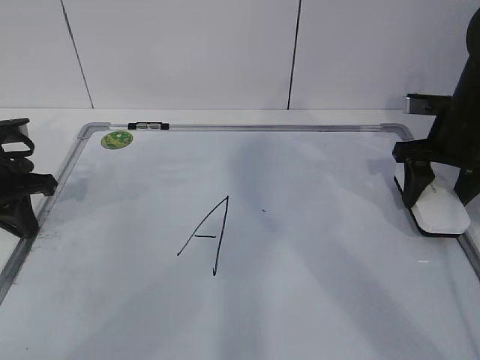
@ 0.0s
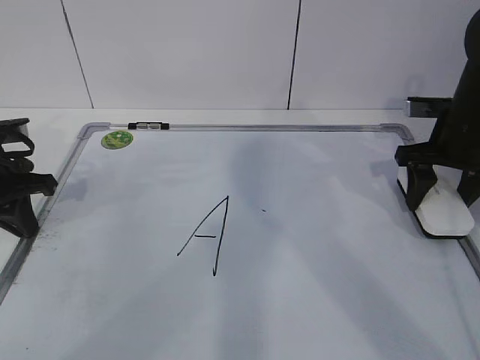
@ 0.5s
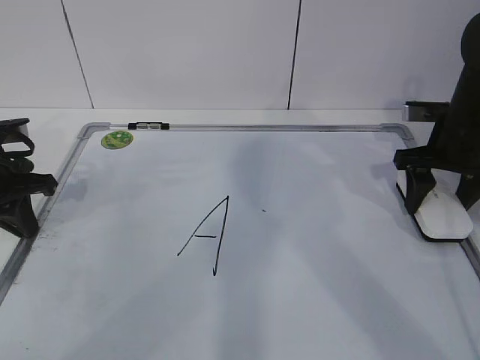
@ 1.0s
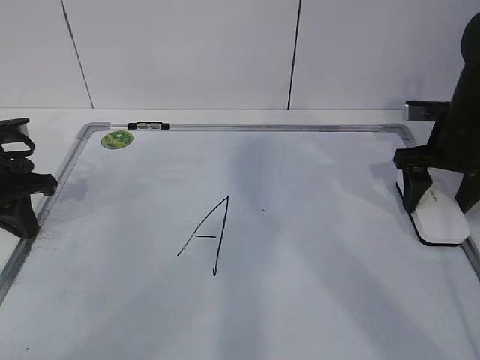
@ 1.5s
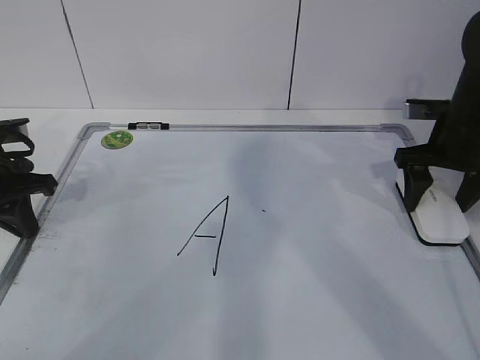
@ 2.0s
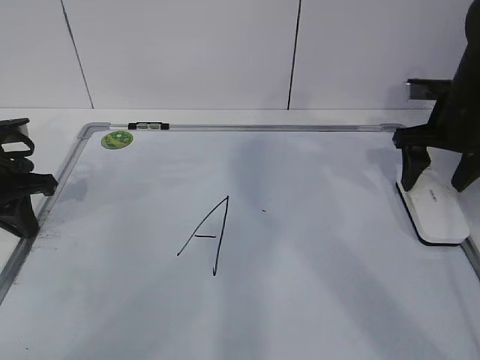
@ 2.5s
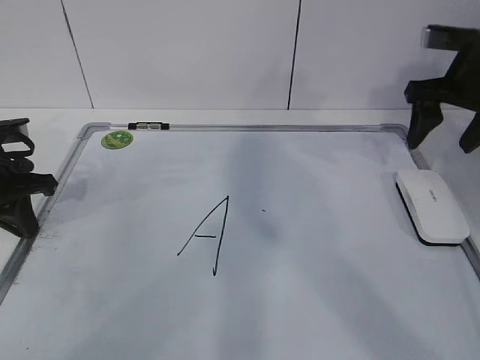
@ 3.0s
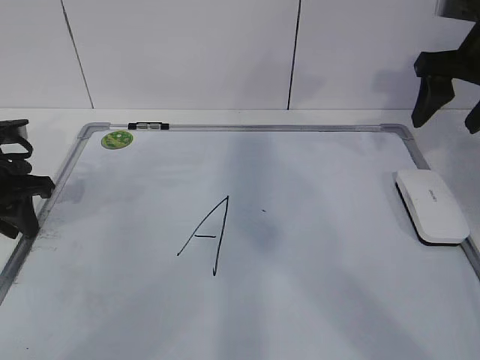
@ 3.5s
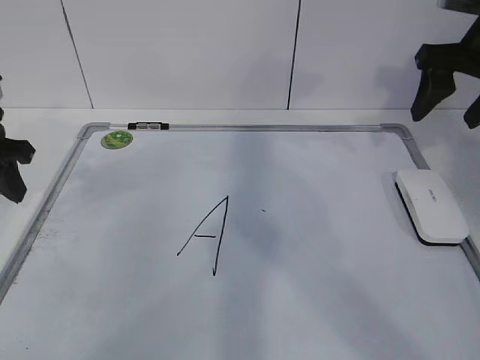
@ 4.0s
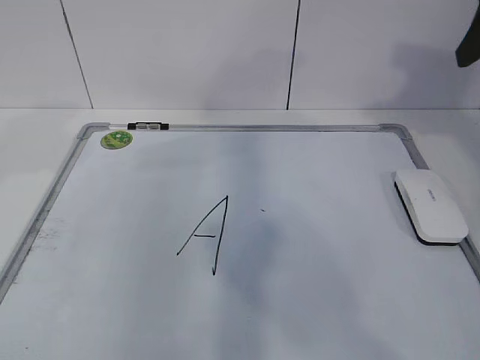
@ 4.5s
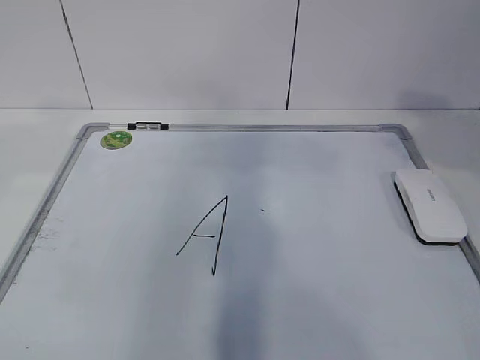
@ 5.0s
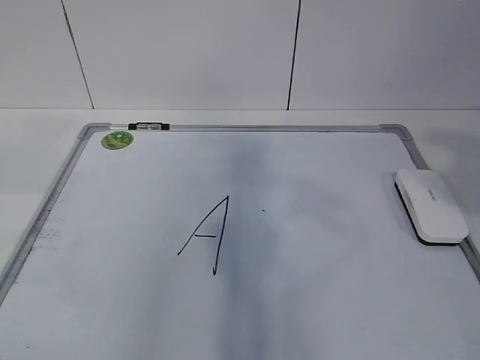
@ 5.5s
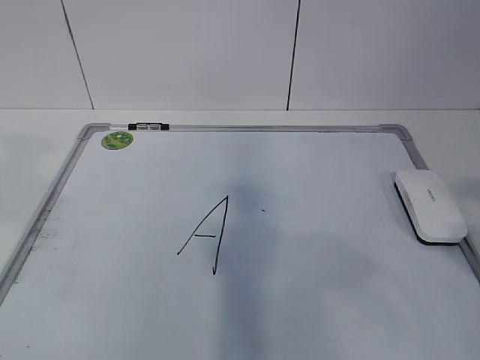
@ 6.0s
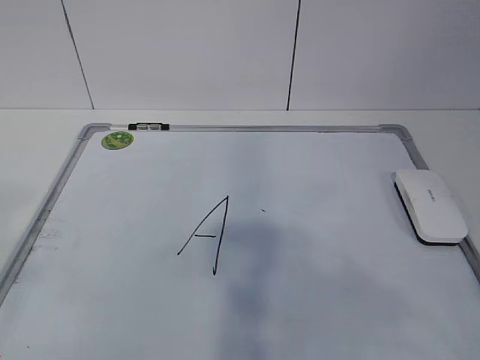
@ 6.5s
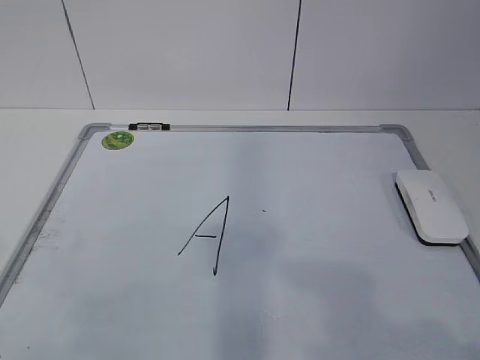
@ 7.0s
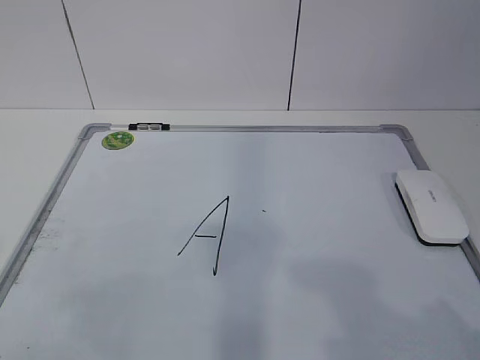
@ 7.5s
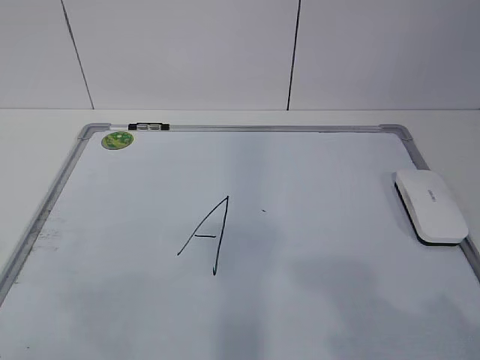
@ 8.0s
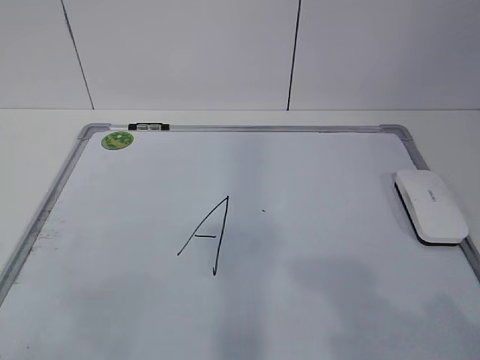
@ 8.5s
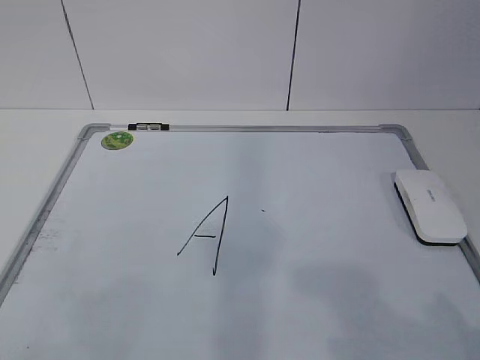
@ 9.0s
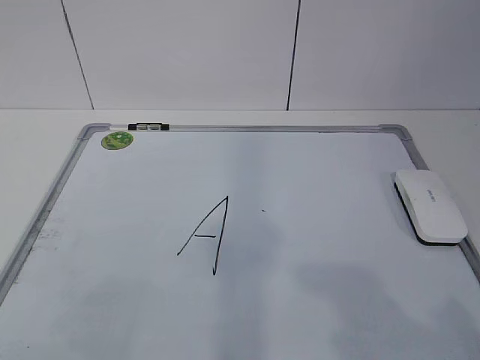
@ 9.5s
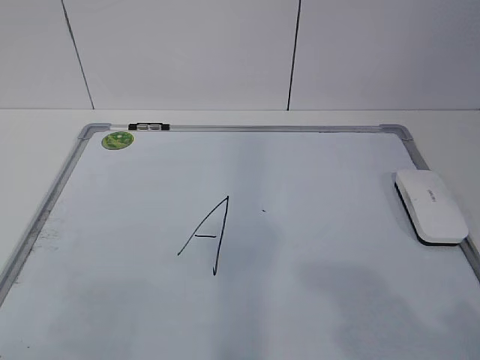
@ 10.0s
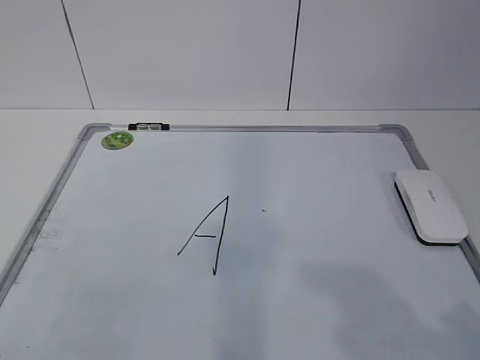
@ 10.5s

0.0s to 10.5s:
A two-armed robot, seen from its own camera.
Task of the whole recording: pick up the eraser on the blackboard and erase the letter "a".
0.0s to 2.0s: The right gripper opens up.
2.0s to 4.0s: The right gripper is displaced upward by approximately 10 cm; the left gripper moves upward, approximately 5 cm, and opens.
4.0s to 6.5s: The left gripper moves backward and upward, roughly 35 cm, while the right gripper heads backward, covering approximately 40 cm.
6.5s to 8.5s: Both grippers move downward, about 10 cm.

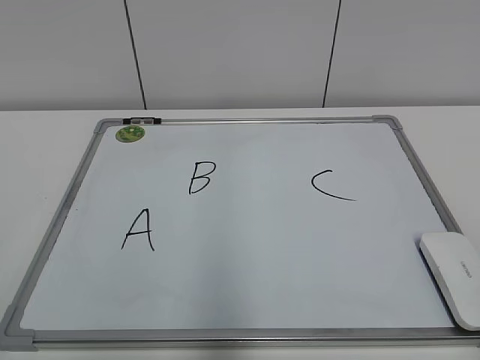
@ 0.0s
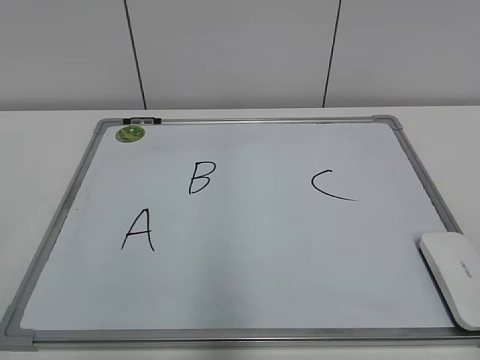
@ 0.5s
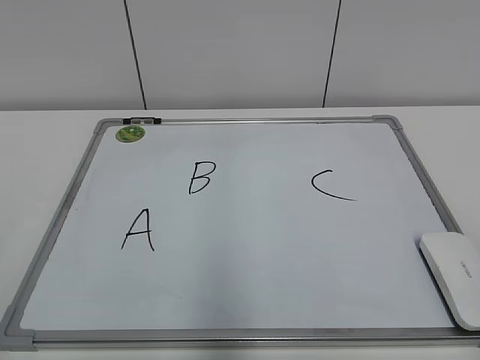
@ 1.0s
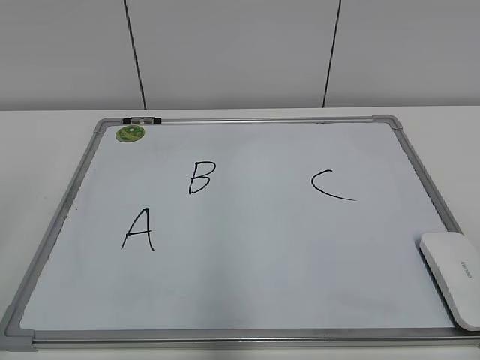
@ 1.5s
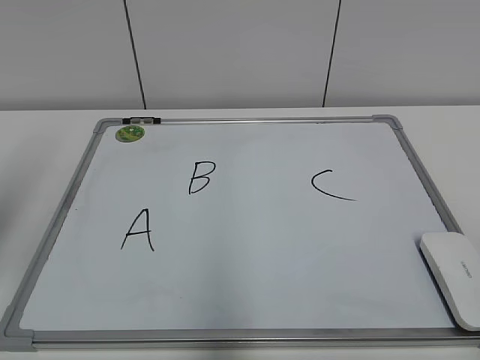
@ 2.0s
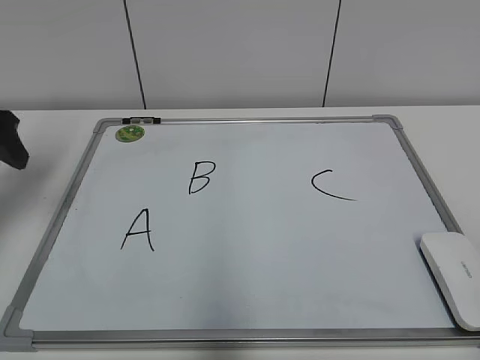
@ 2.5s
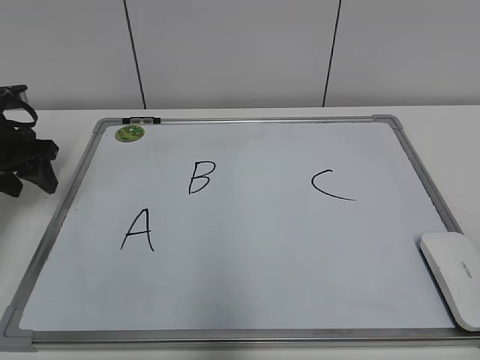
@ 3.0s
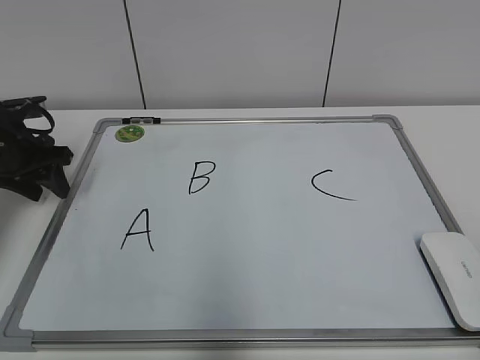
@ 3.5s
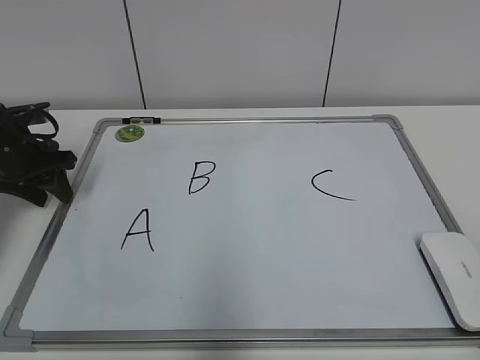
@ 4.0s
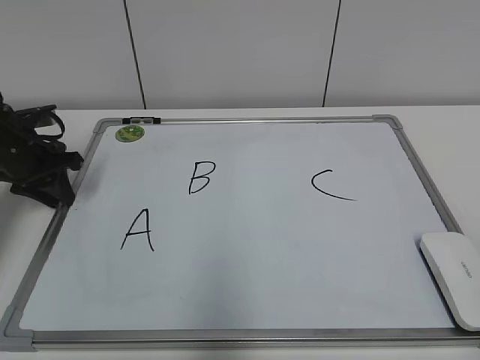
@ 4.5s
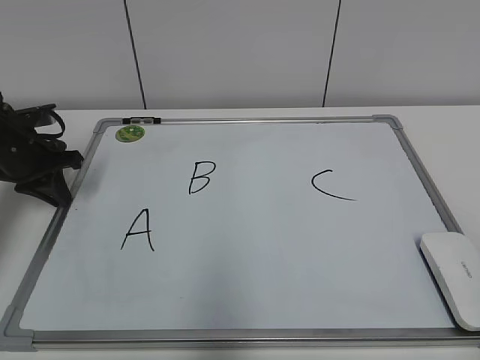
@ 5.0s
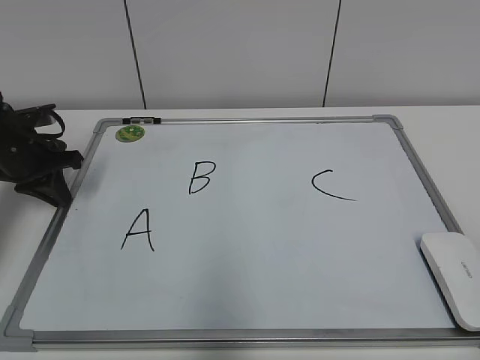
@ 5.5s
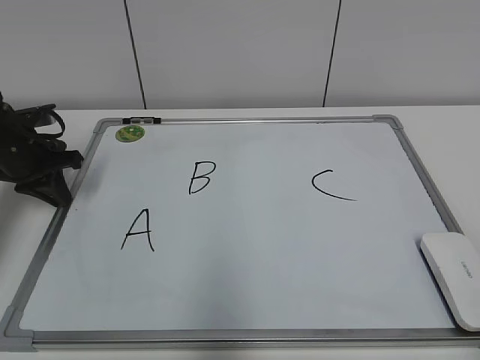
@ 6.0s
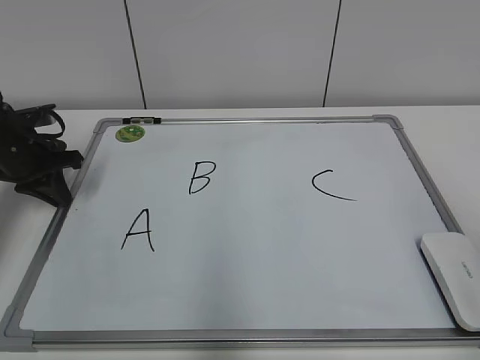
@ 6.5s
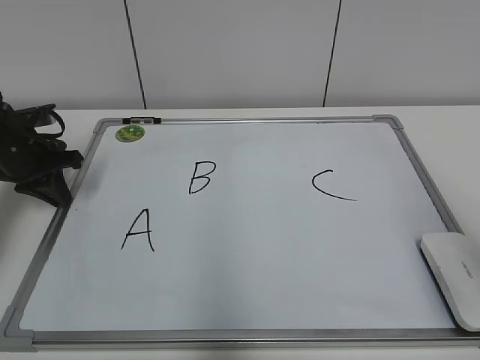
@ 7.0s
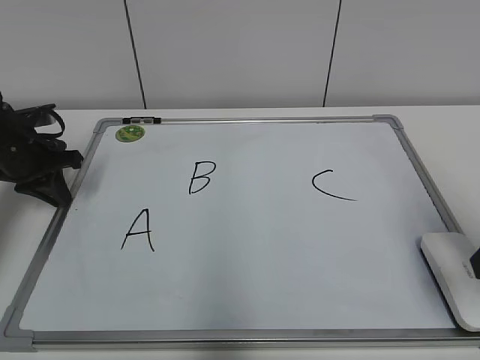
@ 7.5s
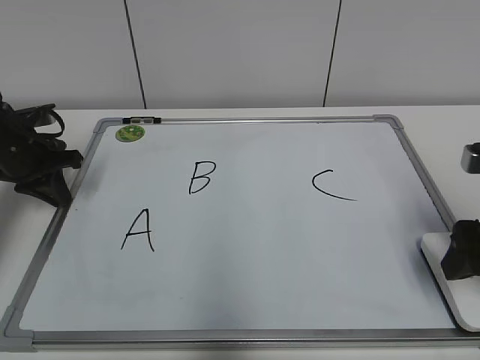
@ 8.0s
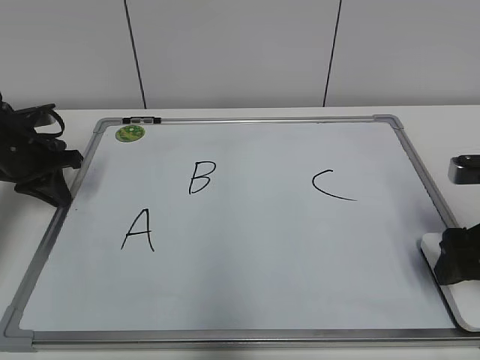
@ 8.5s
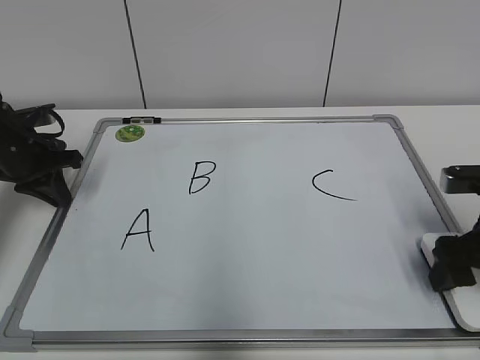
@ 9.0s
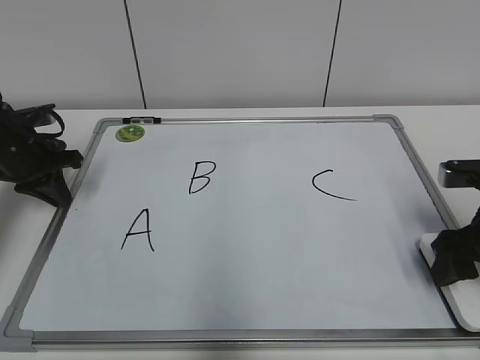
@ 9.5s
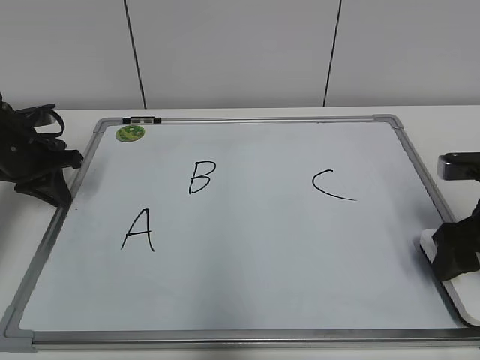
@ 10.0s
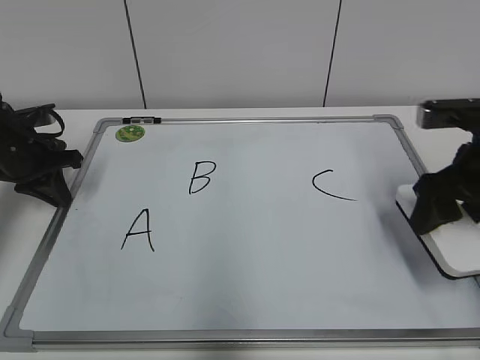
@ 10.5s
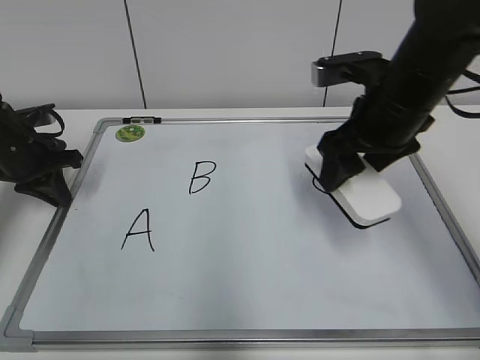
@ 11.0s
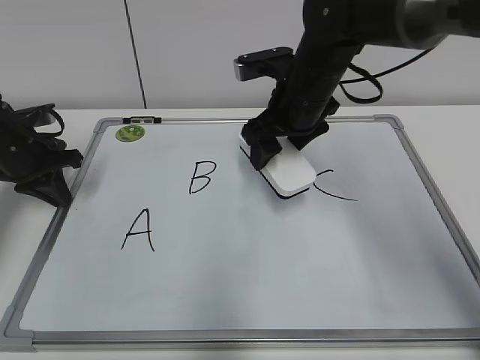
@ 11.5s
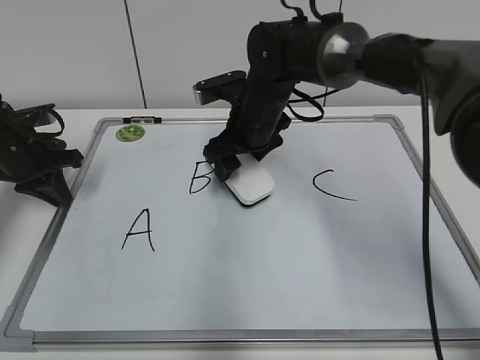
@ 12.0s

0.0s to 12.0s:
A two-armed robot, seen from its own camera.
Task of the whole recording: pick up the eraser on the blackboard and erase the letter "B".
Step, 0.0s to 4.5s: Hold the drawing board steady with your left hand.
Step, 5.0s to 9.5s: Grab the eraser with your right hand.
2.0s to 4.0s: The left gripper goes roughly 30 cm forward and downward.
4.0s to 6.0s: The left gripper closes its fingers.
6.0s to 8.0s: The right gripper goes some 25 cm forward, and opens.
8.0s to 10.0s: The right gripper closes up.
10.0s to 12.0s: The right gripper goes approximately 30 cm to the left and forward.

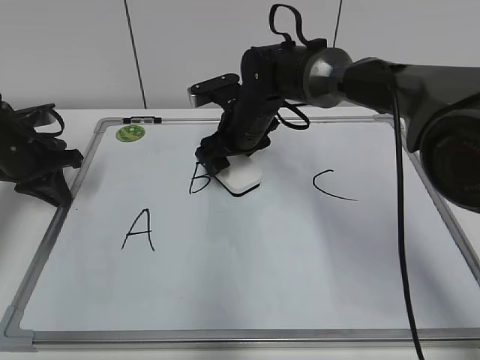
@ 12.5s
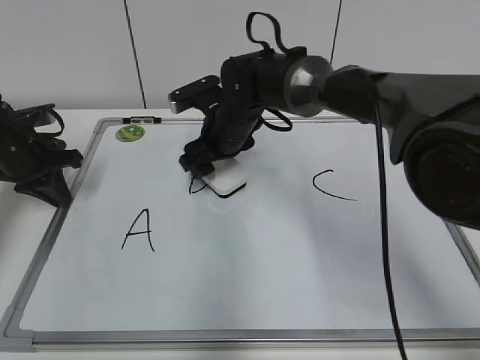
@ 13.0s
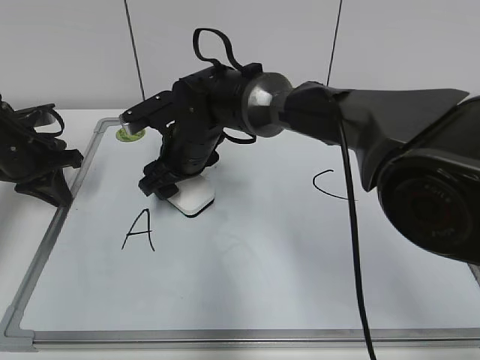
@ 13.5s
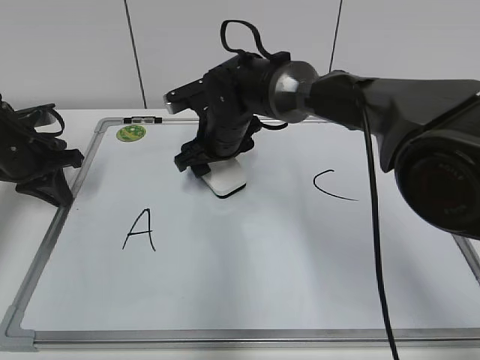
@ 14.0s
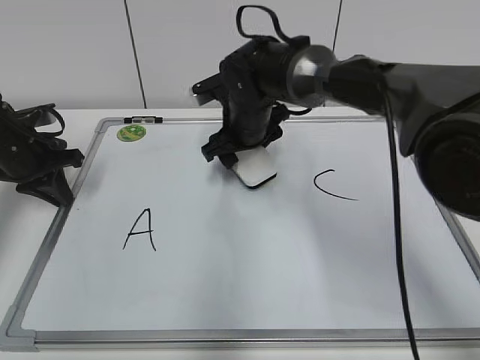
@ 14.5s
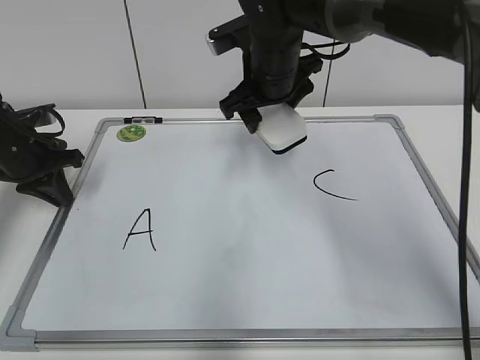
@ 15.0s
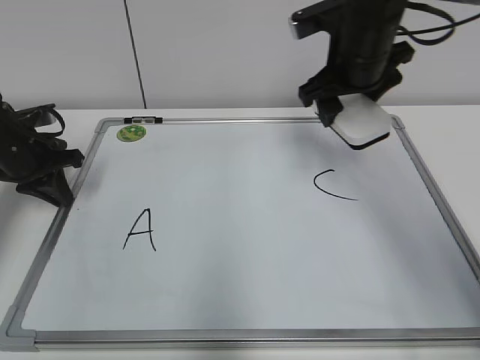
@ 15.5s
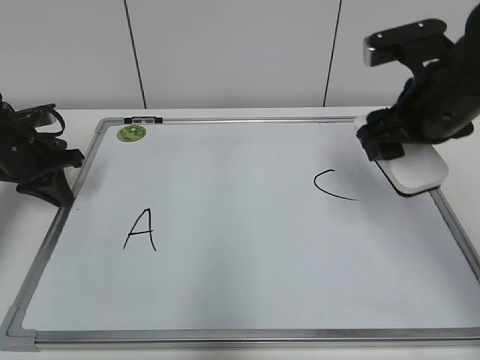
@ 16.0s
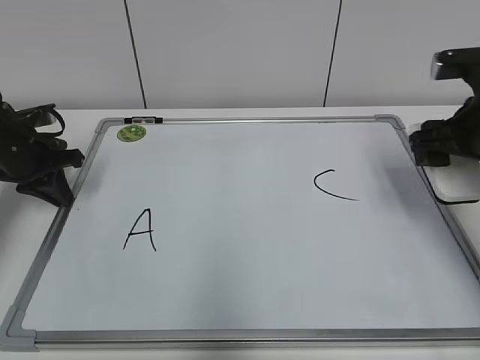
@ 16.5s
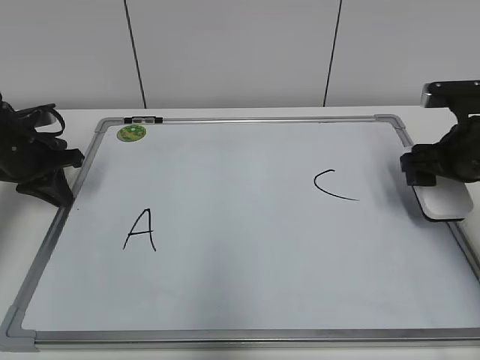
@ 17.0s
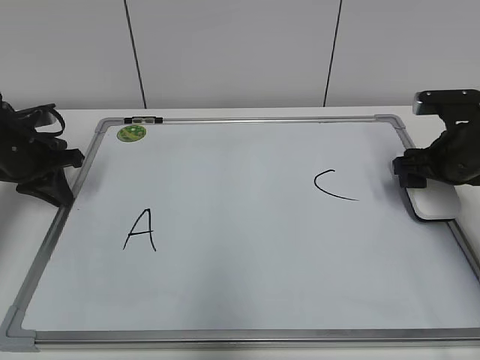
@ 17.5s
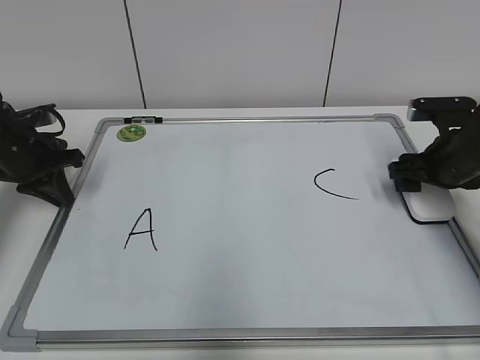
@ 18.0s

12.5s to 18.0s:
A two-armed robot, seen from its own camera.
Task of the whole recording: pick up the eraser on the blackboard and erase the letter "B".
Step, 14.5s to 17.5s: Put down the eraser with your right hand.
12.5s to 14.5s: The right gripper travels to the left and back again, approximately 10 cm each way.
14.5s to 16.0s: The right gripper shifts approximately 25 cm to the right, backward and upward.
16.0s to 18.0s: The right gripper goes about 15 cm downward, to the right and forward.
